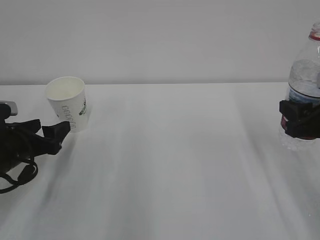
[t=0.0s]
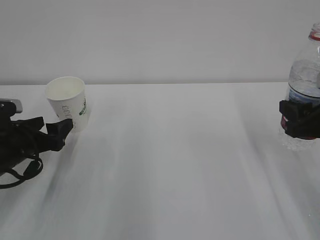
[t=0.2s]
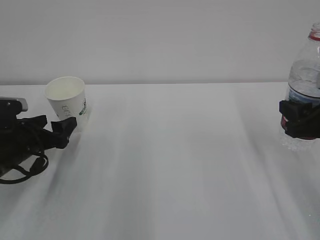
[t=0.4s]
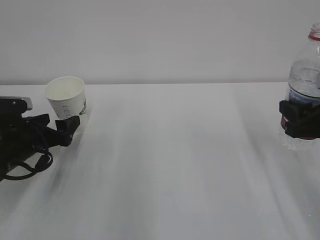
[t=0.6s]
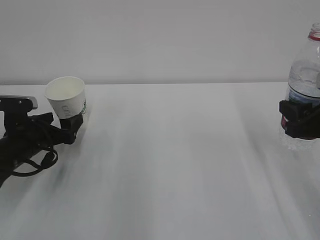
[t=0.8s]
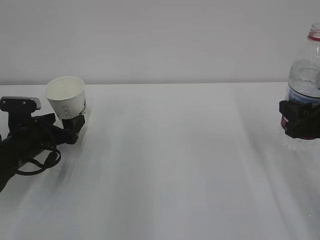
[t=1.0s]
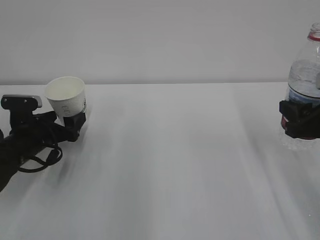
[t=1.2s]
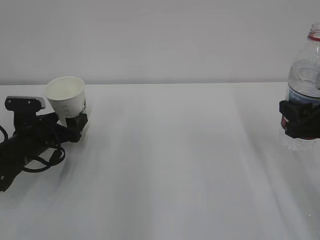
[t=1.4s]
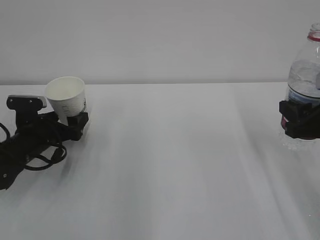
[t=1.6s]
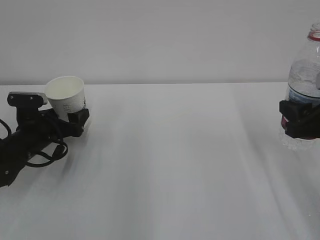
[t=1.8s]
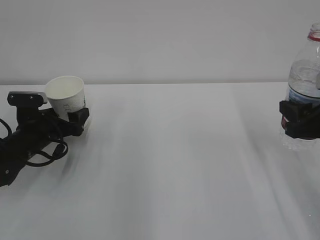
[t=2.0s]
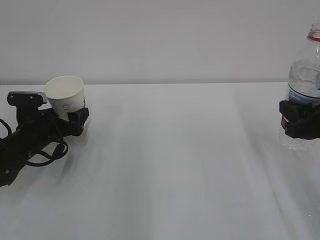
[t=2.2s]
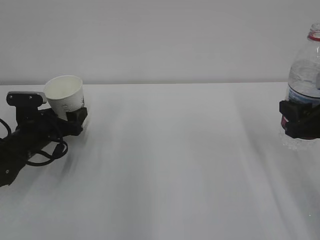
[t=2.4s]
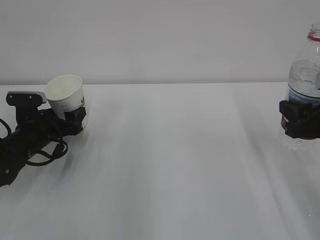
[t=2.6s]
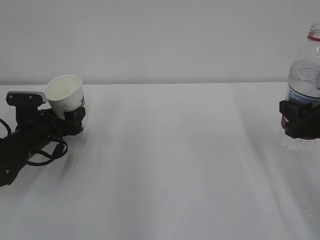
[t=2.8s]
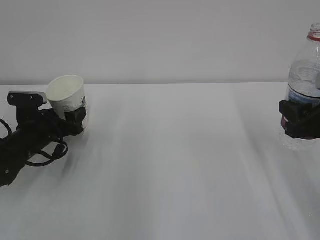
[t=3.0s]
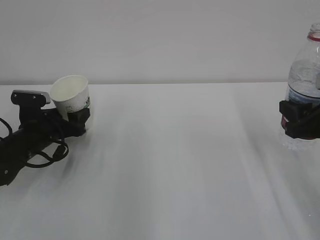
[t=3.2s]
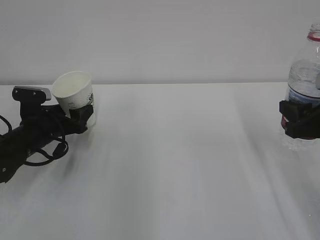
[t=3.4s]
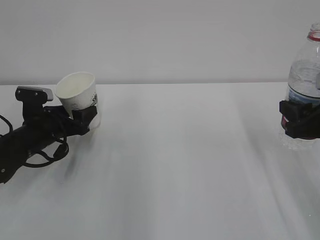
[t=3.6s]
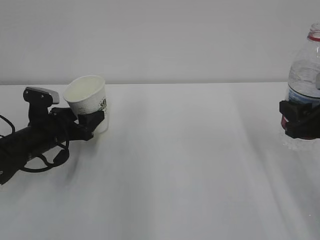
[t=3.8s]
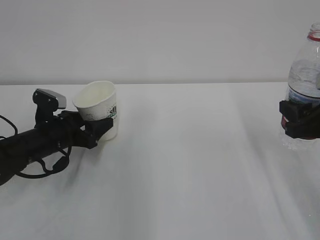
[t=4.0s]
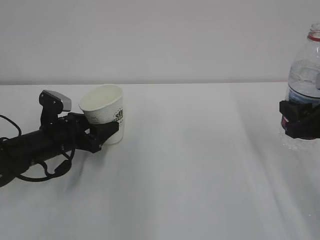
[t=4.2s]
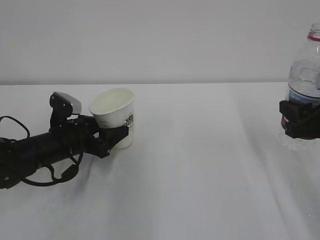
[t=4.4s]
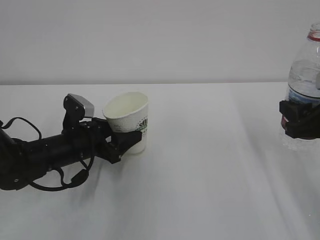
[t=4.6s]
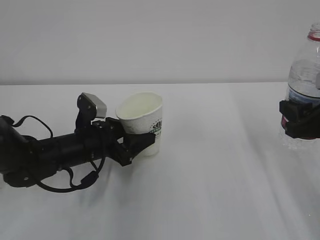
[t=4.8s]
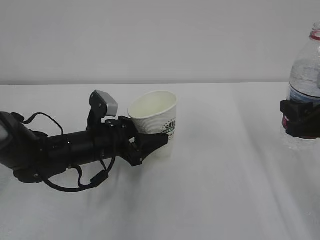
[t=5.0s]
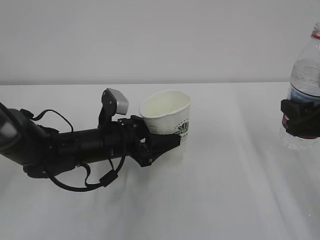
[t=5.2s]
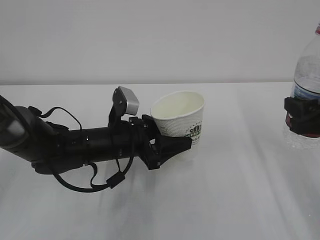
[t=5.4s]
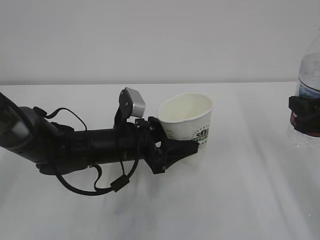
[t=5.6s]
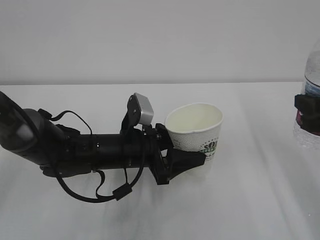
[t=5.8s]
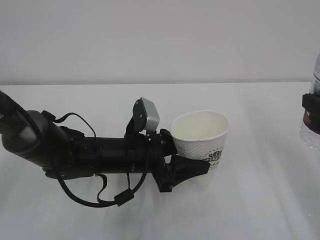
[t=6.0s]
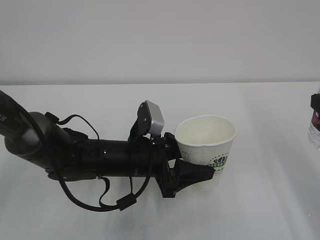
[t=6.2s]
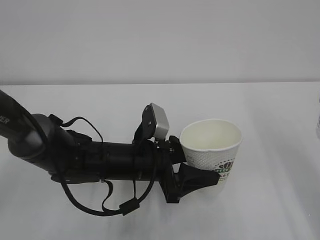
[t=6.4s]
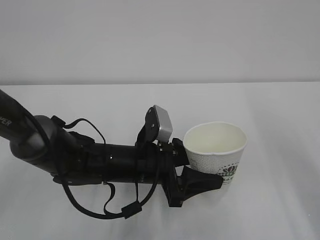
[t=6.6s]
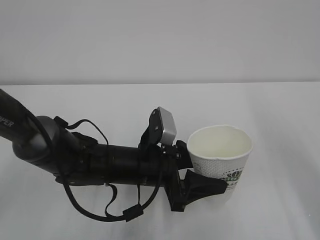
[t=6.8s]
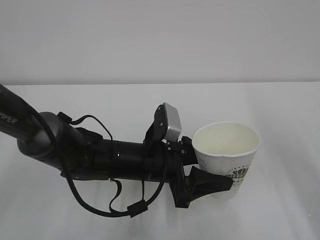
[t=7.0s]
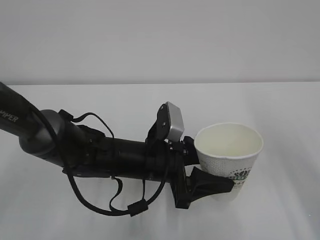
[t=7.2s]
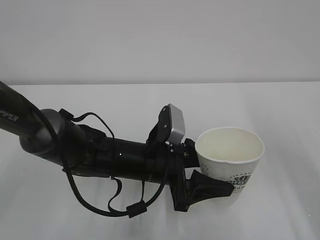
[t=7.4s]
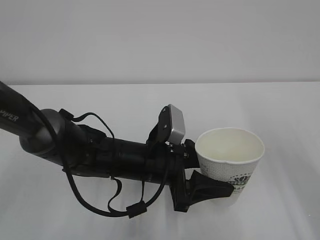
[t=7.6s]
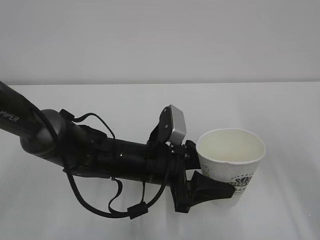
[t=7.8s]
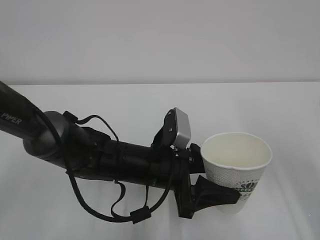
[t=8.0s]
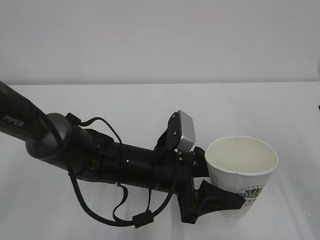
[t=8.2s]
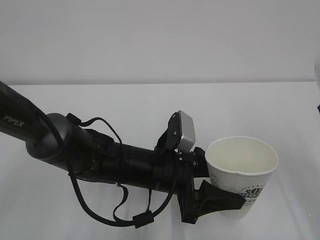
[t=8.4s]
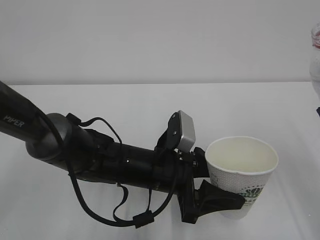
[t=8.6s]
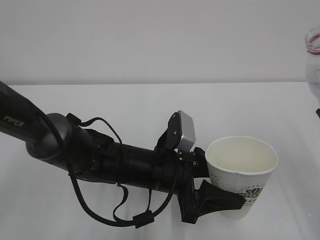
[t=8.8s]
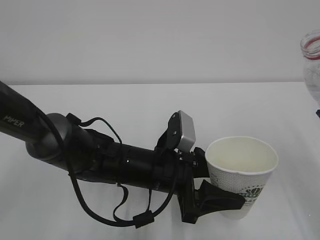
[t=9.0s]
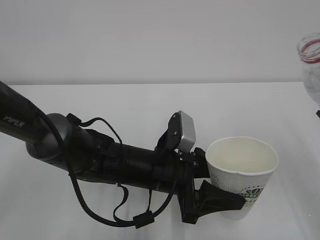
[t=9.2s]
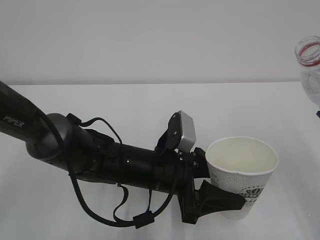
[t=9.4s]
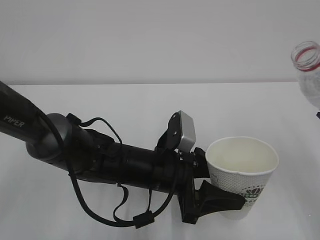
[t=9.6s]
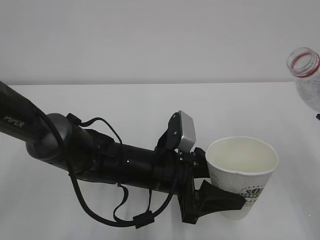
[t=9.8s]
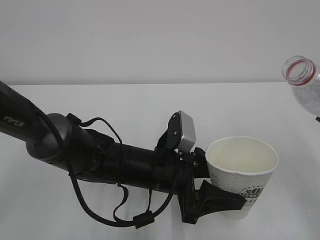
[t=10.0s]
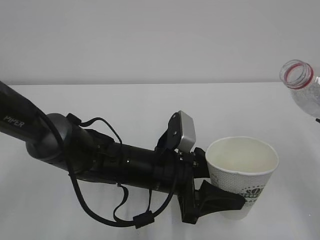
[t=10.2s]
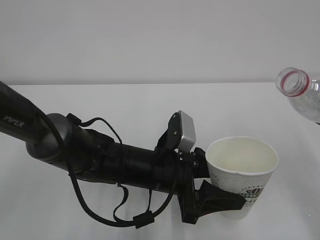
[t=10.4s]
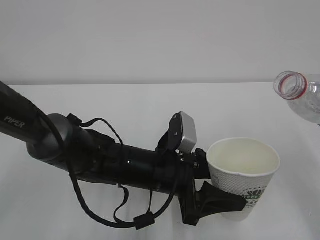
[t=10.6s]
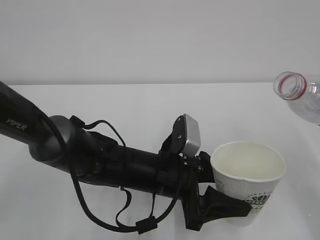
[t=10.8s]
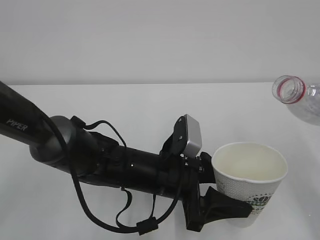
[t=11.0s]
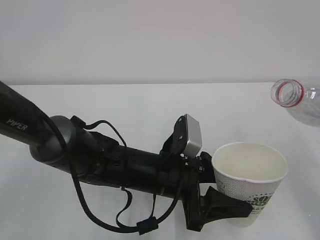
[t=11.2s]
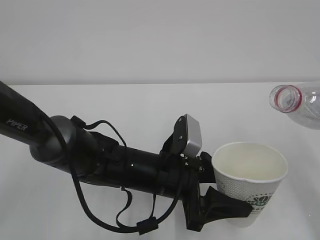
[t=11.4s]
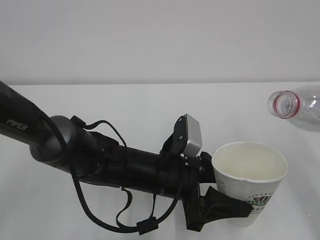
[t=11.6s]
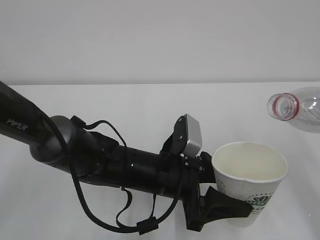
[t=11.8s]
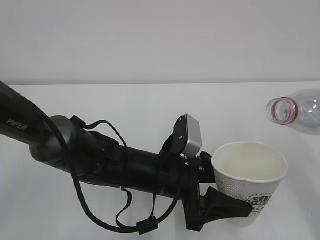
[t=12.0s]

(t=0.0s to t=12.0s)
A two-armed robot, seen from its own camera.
t=0.0s - t=1.6s: The left gripper moves forward, about 5 cm.
t=1.6s - t=3.0s: The left gripper closes its fingers.
t=3.0s - t=4.4s: The left gripper travels to the right by some 5 cm.
t=4.4s - t=6.0s: The right gripper shifts by some 5 cm. The left gripper shifts some 15 cm to the right.
t=6.0s - t=7.6s: The grippers make only small movements.
t=9.0s - t=10.4s: There are only small adjustments of the grippers.
t=10.4s - t=12.0s: The grippers make only small movements.

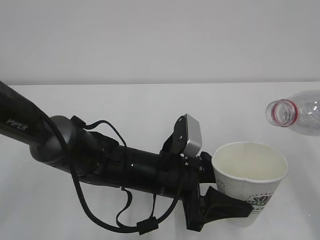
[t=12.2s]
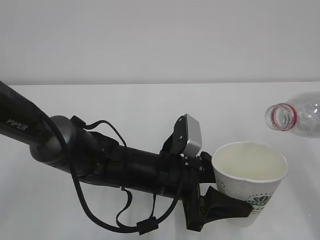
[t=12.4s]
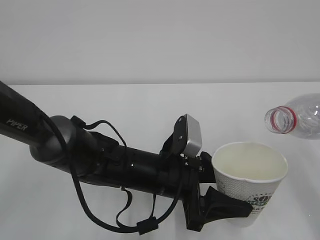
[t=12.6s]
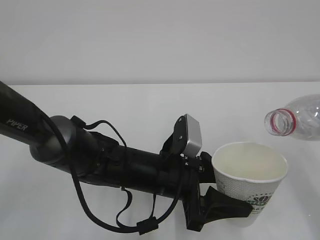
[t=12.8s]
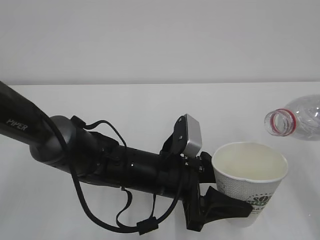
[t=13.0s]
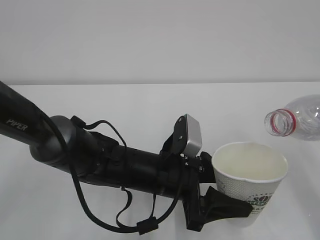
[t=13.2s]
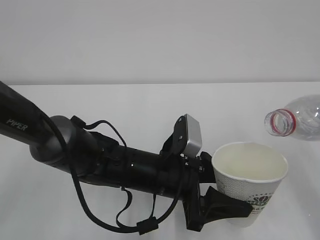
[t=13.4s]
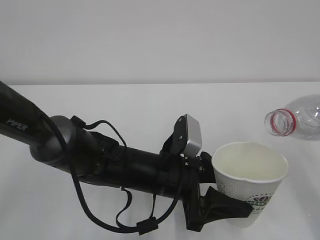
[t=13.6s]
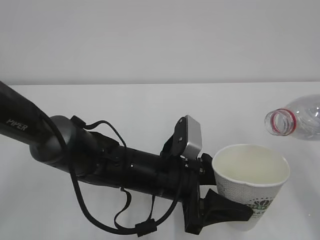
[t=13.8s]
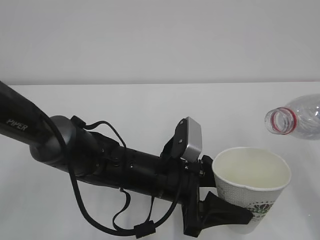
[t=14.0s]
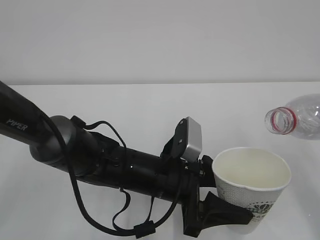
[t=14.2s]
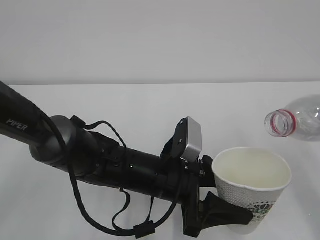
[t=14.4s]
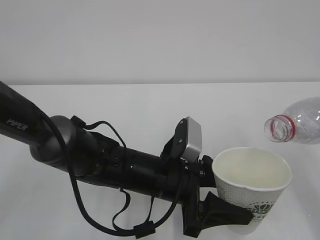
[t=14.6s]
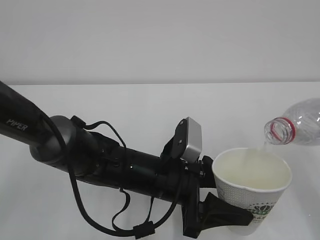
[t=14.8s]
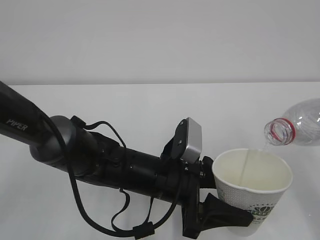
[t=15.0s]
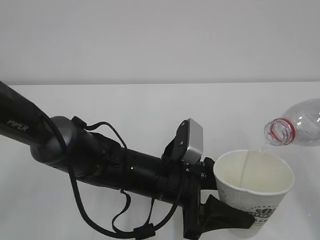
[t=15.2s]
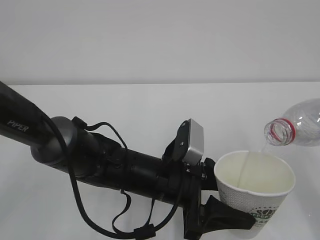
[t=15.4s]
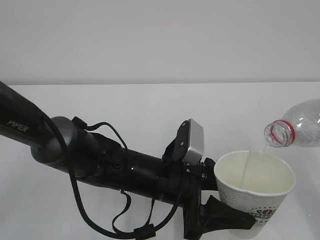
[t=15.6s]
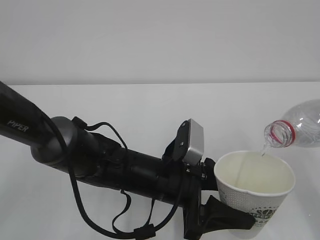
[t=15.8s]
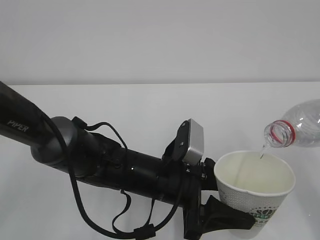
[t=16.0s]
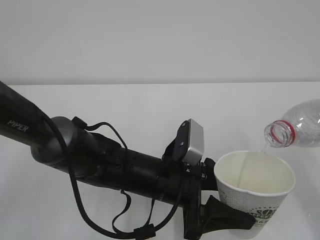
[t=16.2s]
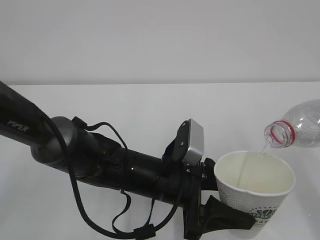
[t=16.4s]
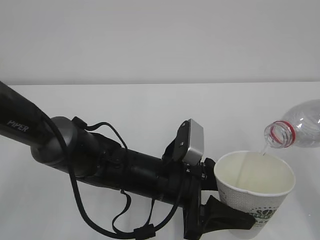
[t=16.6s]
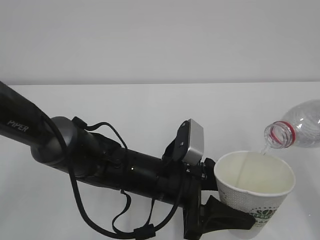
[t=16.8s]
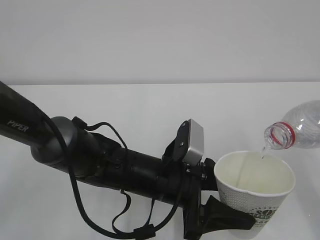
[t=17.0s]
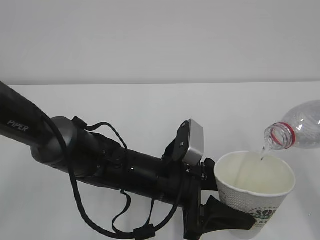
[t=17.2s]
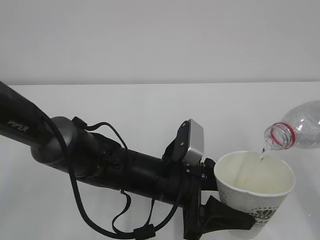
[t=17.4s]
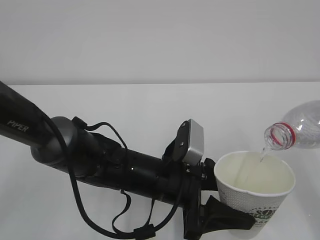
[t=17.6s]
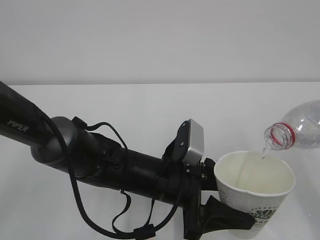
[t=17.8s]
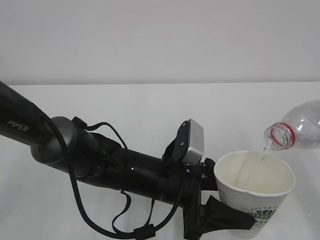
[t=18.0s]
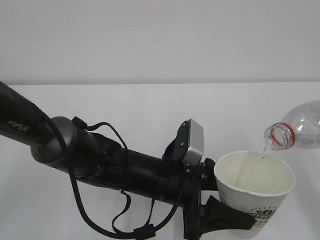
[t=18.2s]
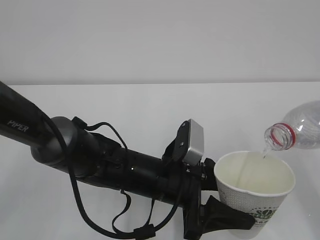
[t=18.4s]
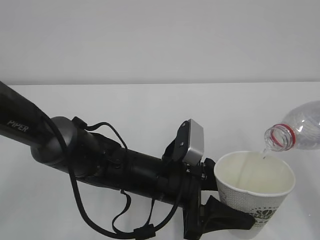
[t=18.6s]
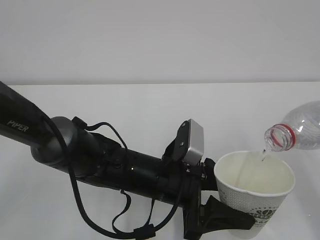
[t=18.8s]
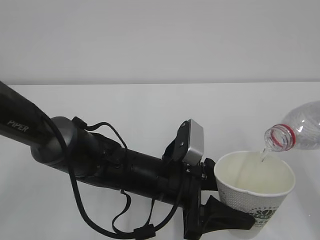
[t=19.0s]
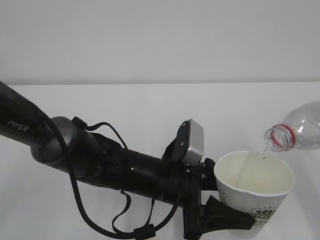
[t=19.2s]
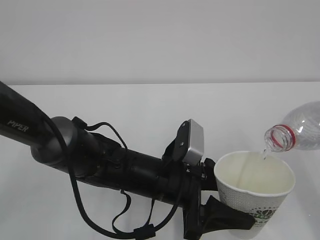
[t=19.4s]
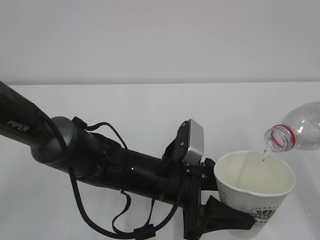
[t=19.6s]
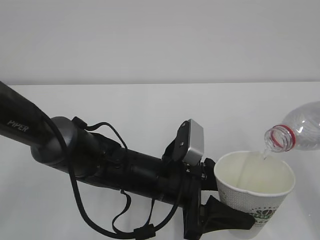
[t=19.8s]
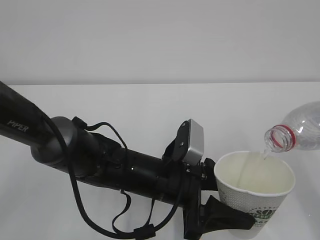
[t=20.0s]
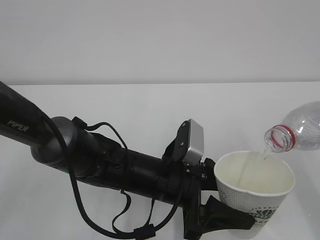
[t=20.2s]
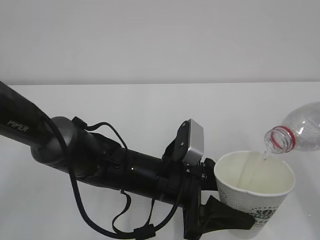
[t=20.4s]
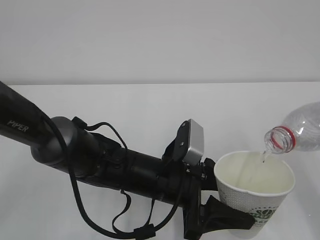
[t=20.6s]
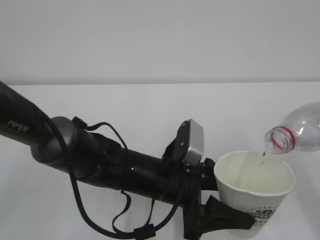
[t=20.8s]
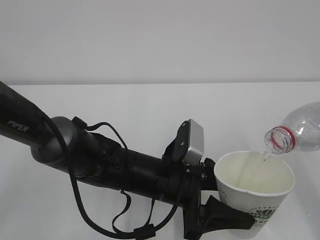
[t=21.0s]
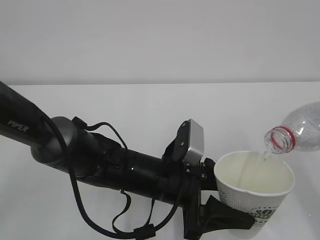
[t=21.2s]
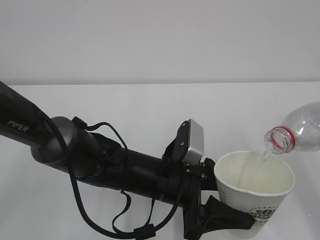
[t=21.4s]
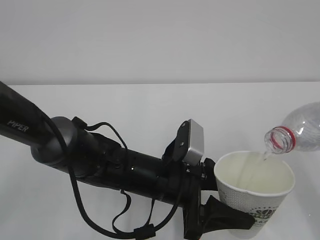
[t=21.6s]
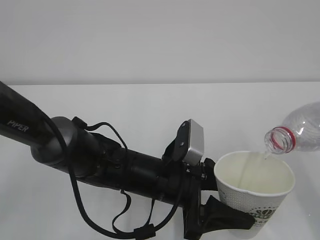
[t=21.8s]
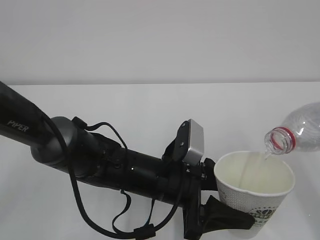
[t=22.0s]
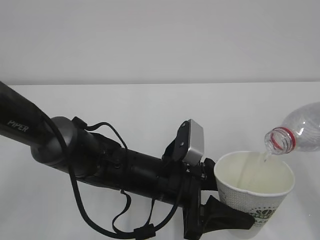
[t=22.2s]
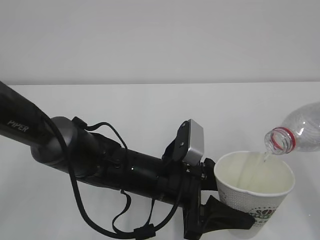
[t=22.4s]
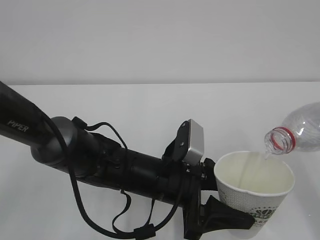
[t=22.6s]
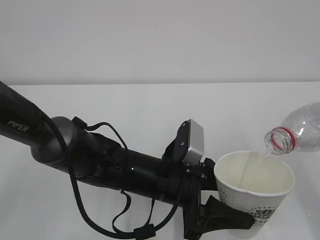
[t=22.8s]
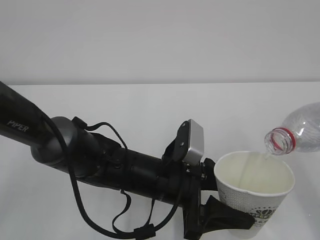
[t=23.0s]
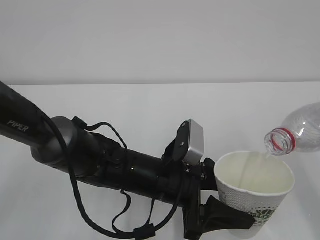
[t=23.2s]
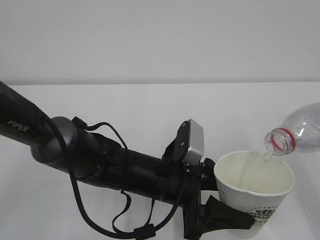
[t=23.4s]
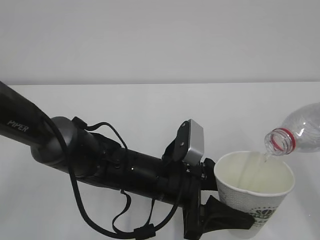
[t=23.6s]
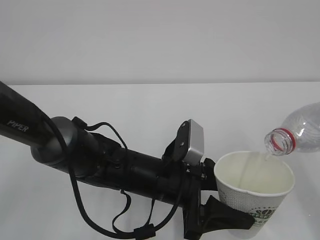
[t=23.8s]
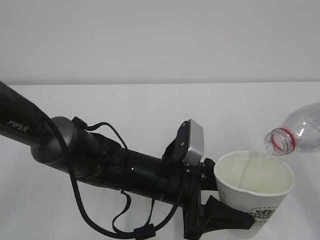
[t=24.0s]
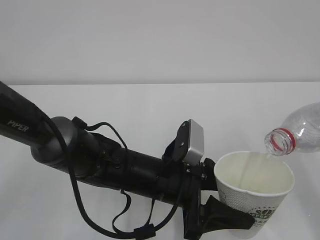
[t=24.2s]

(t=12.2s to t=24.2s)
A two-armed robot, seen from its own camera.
t=12.2s - t=15.2s: The grippers make only small movements.
t=15.2s - t=22.6s: The two grippers keep their place.
t=22.6s - t=24.2s: Neither gripper changes place.
